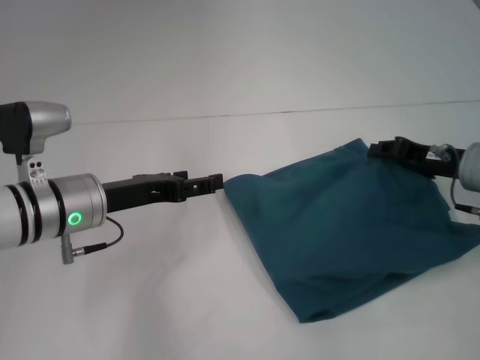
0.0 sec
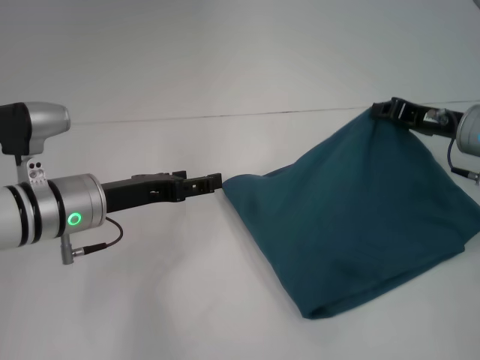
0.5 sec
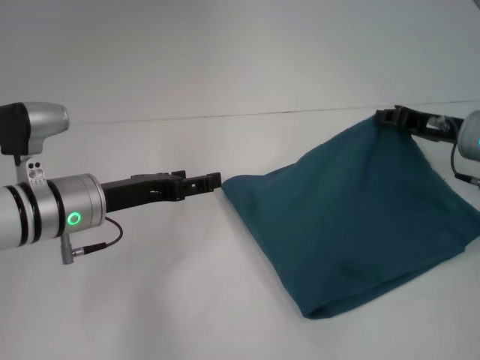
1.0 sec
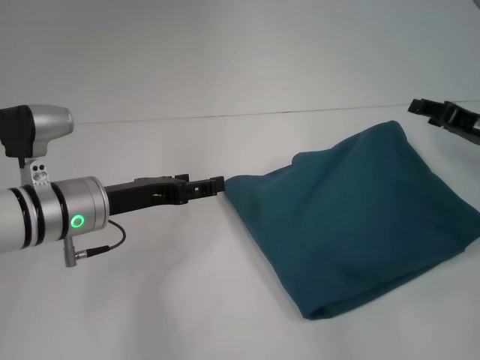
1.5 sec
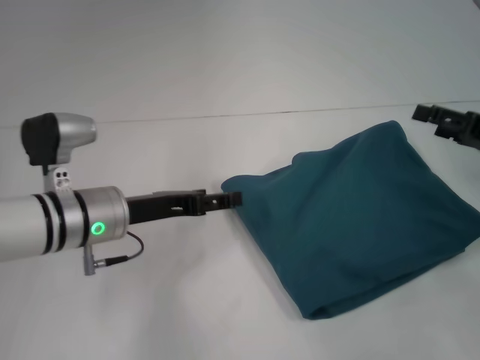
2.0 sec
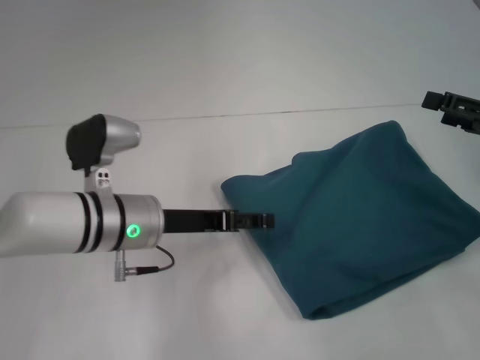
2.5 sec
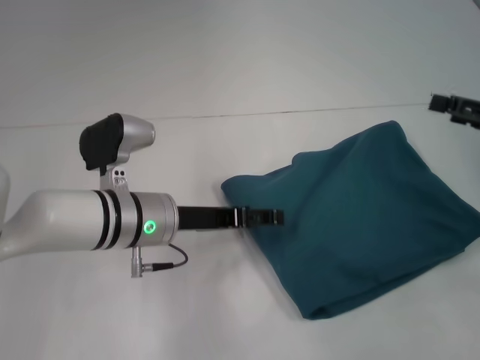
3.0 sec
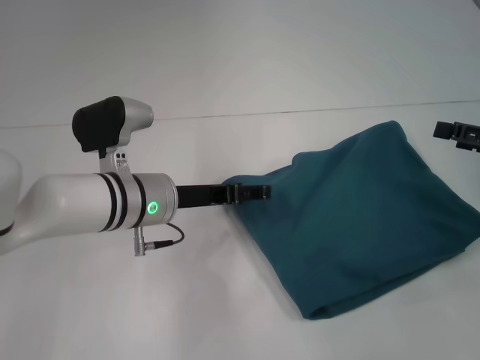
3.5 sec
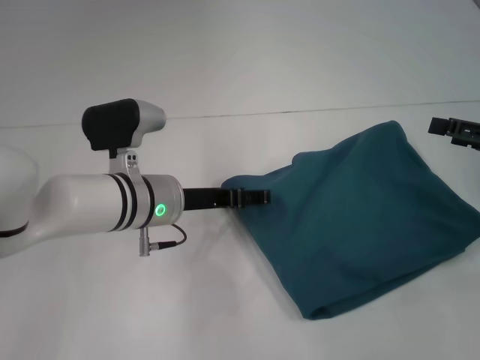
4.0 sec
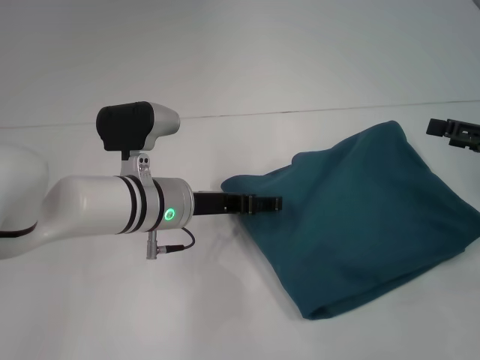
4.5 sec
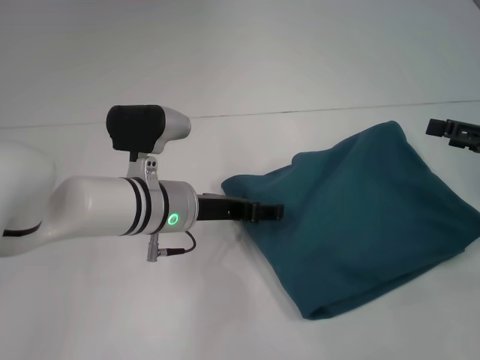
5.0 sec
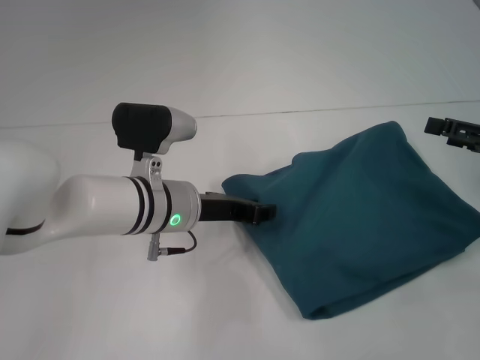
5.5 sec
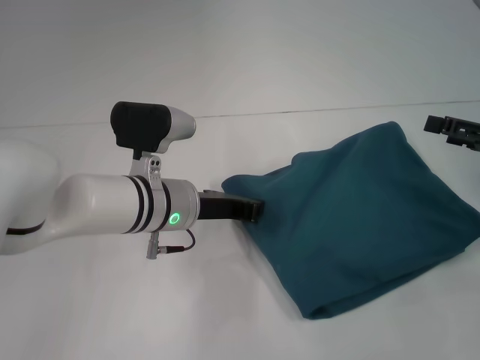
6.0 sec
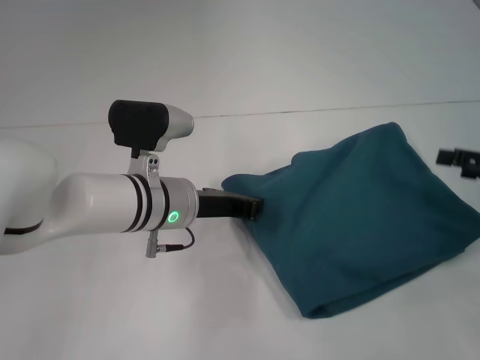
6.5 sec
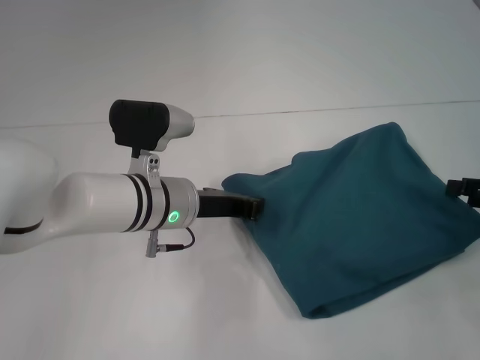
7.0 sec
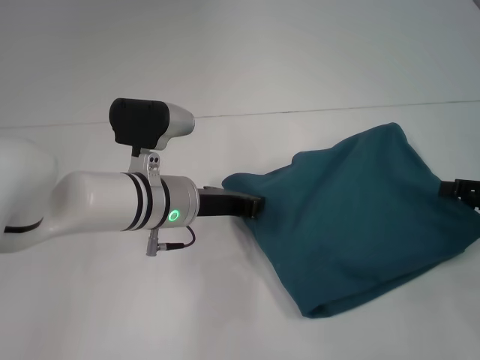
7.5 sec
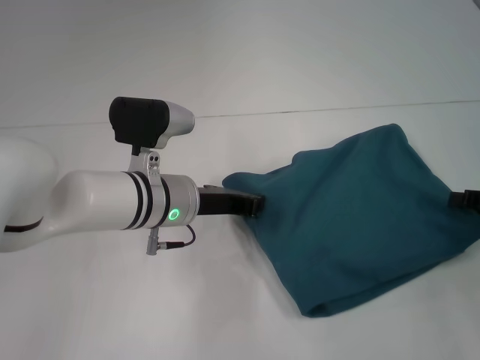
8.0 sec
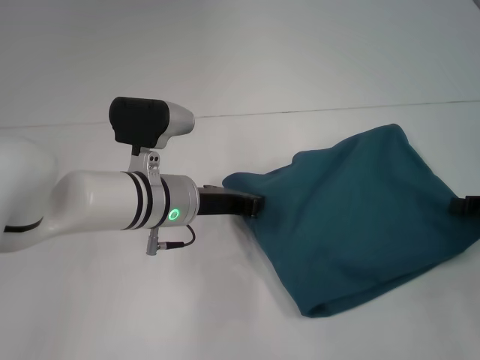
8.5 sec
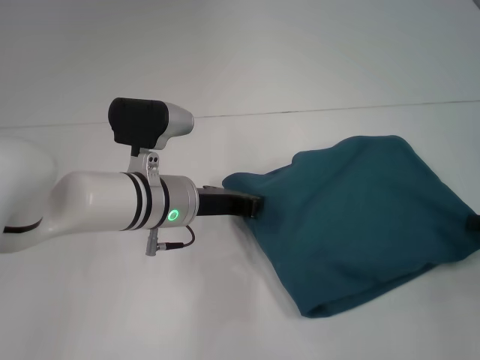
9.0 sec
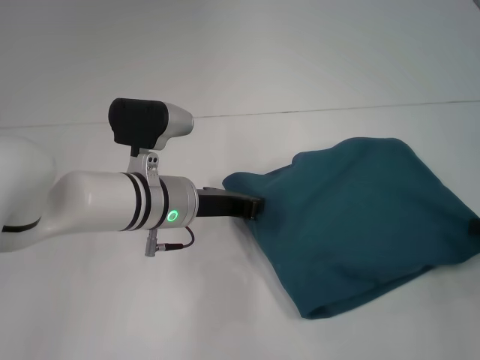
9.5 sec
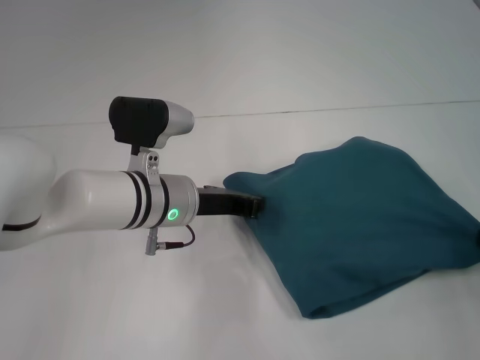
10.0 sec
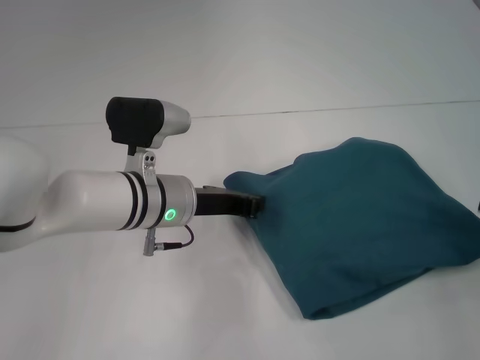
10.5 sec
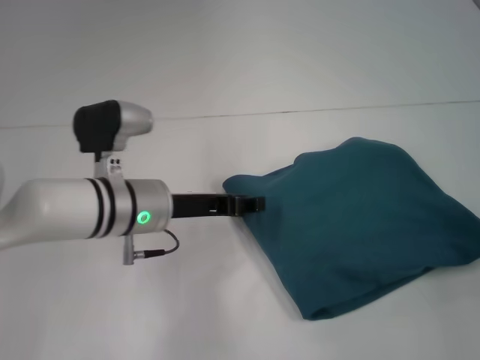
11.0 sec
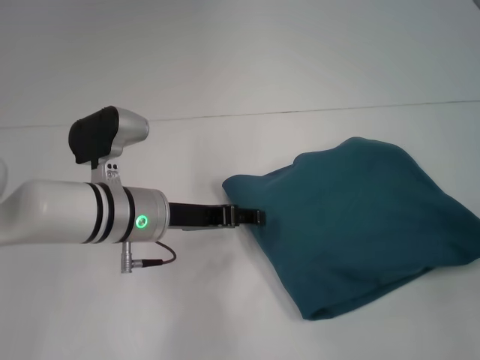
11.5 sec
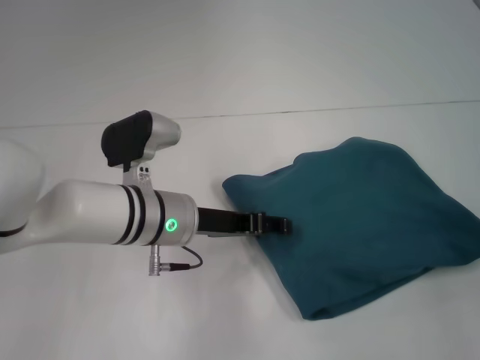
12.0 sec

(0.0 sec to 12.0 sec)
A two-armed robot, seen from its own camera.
0.0 sec - 2.0 sec: The right gripper moves to the right, approximately 5 cm, and opens its fingers.
2.0 sec - 4.0 sec: The left gripper moves to the right, approximately 5 cm.
4.0 sec - 6.0 sec: The left gripper closes.
6.0 sec - 8.0 sec: The right gripper ends up approximately 5 cm from where it was.
8.0 sec - 10.0 sec: The right gripper closes its fingers.
10.0 sec - 12.0 sec: The left gripper opens. Meanwhile the right gripper shifts about 5 cm upward, and opens up.

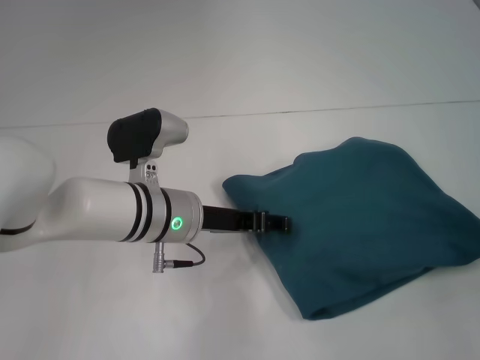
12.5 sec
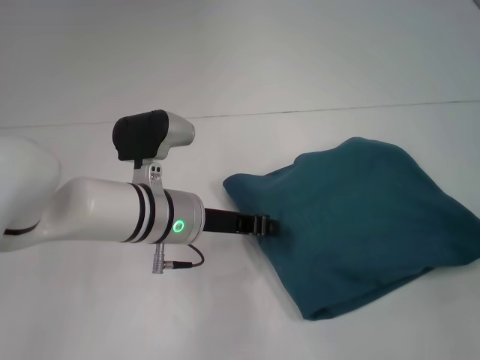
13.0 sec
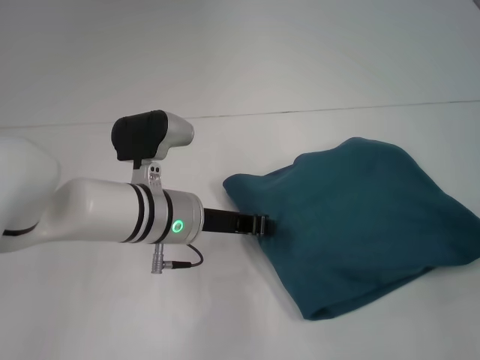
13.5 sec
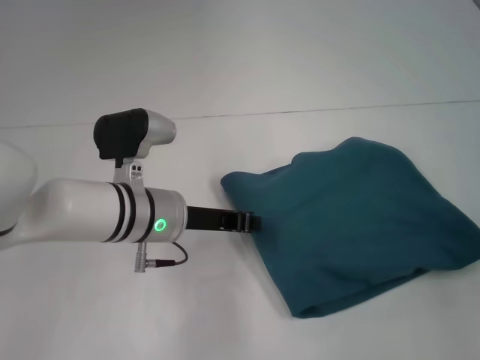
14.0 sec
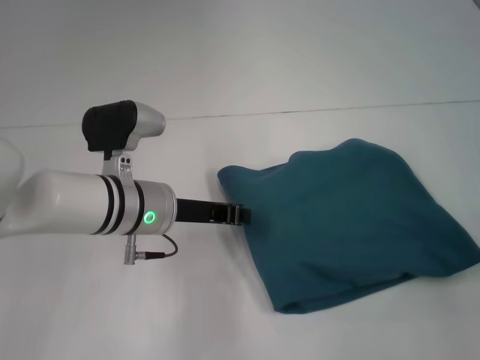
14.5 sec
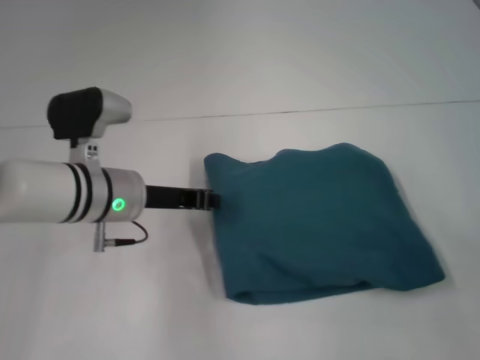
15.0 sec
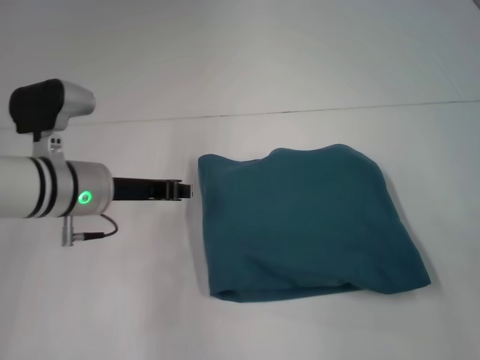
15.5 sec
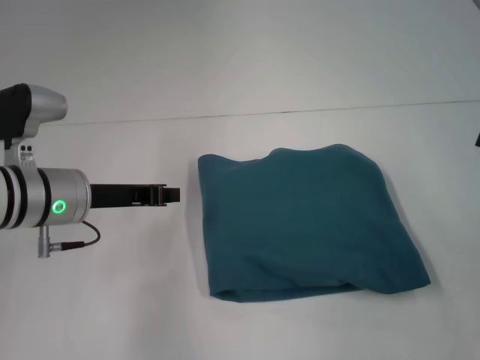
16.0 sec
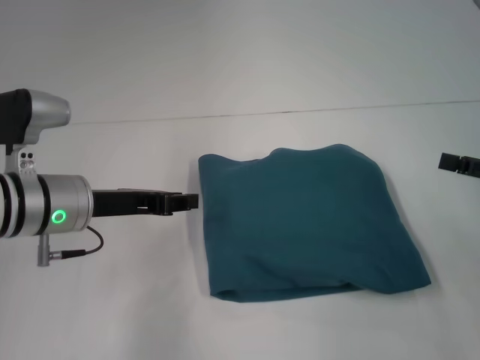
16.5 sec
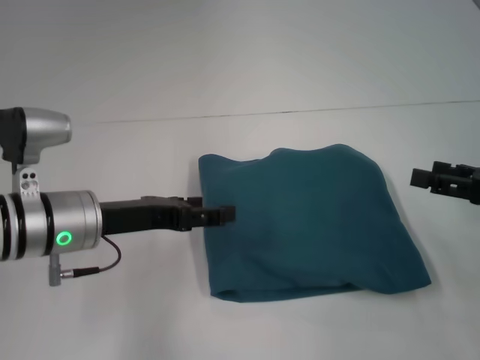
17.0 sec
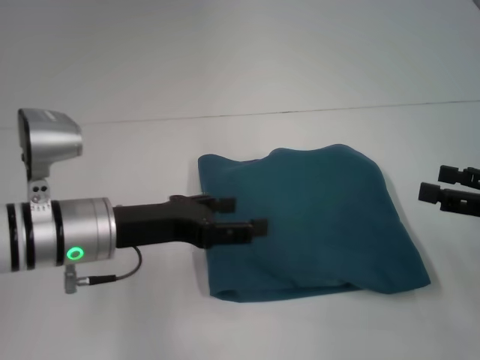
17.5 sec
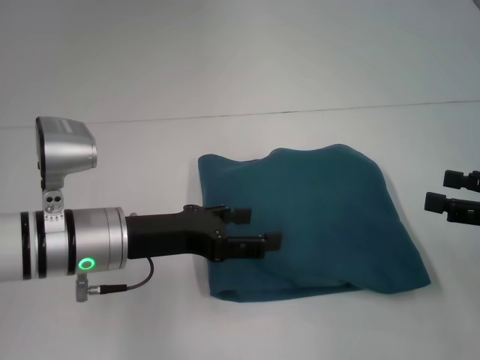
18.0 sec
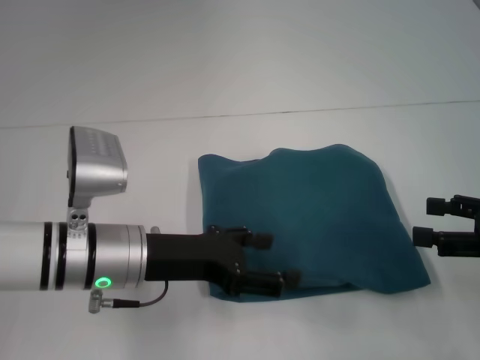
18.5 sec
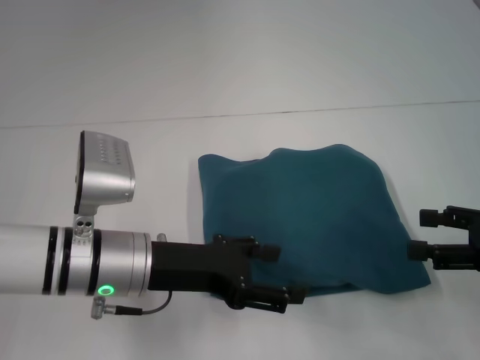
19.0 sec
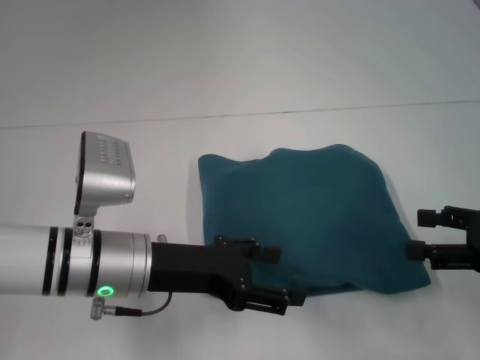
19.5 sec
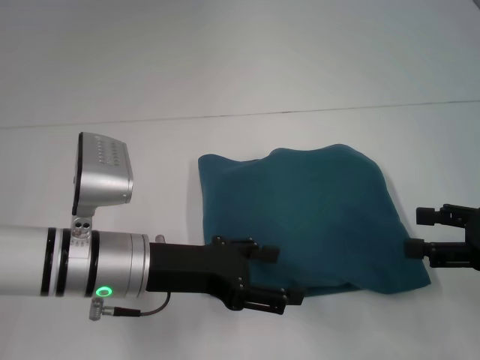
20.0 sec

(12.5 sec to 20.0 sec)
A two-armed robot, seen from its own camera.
12.5 sec - 14.5 sec: The left gripper closes up.
14.5 sec - 16.5 sec: The left gripper heads to the left, covering roughly 10 cm.
16.5 sec - 18.0 sec: The left gripper moves roughly 5 cm, and opens.
18.0 sec - 20.0 sec: The grippers stay close to where they were, moving slightly.

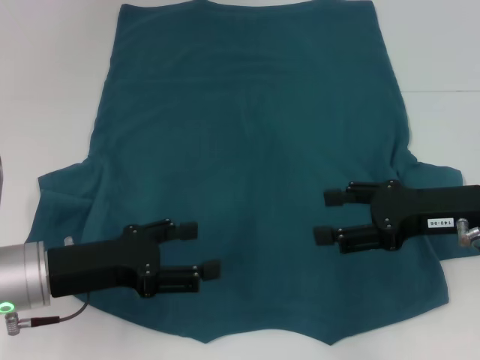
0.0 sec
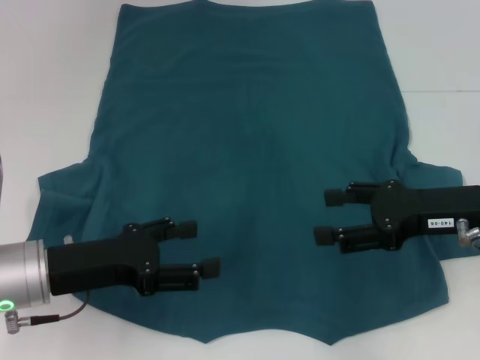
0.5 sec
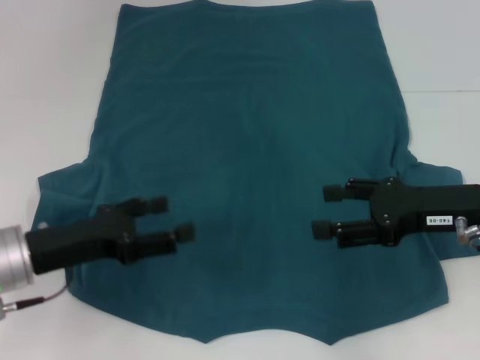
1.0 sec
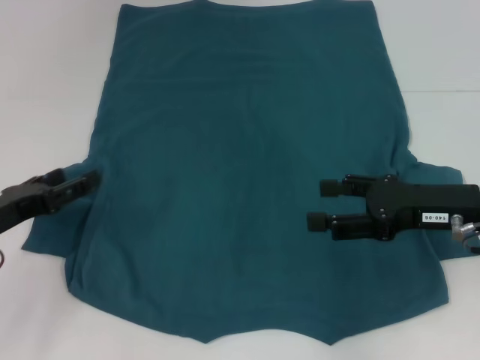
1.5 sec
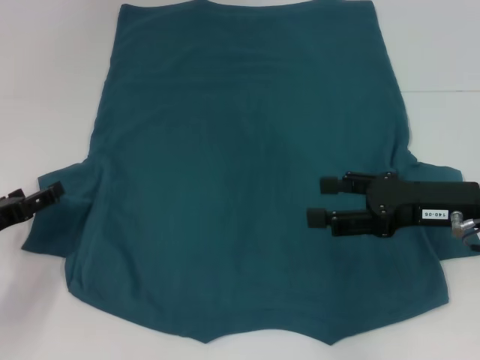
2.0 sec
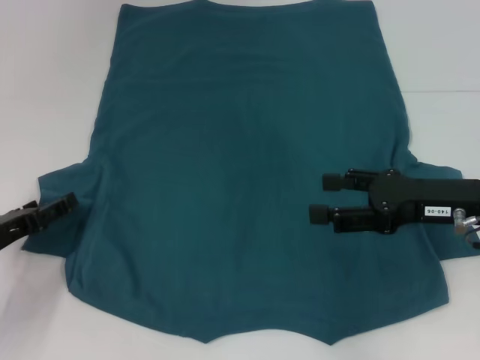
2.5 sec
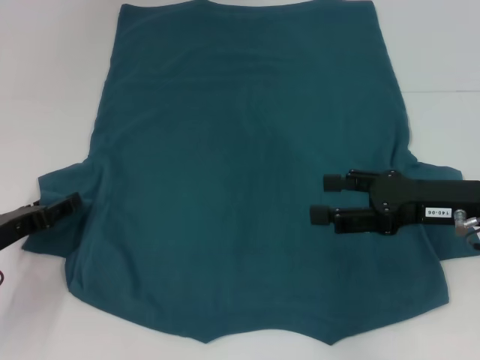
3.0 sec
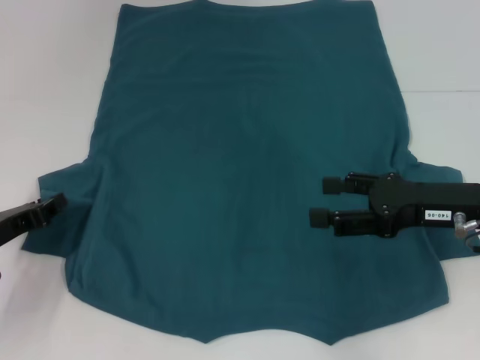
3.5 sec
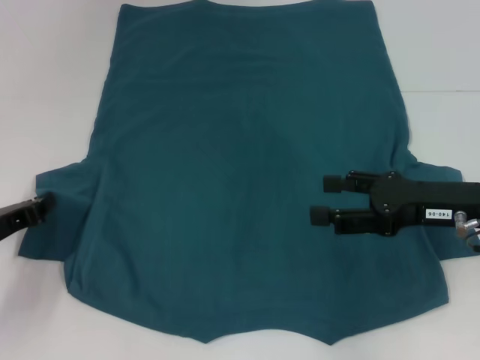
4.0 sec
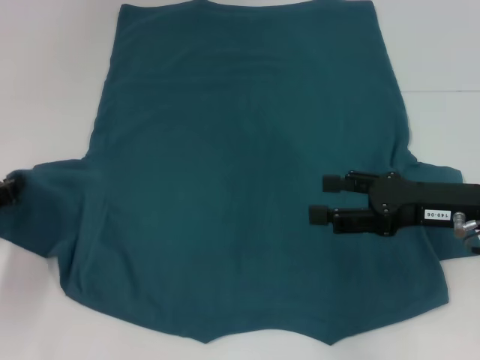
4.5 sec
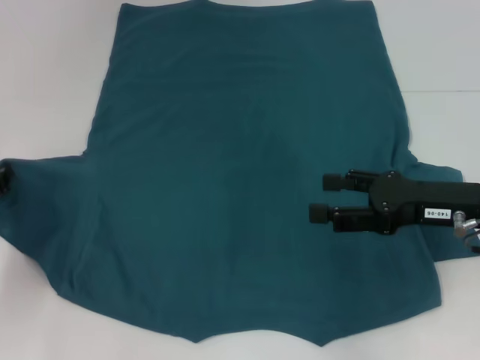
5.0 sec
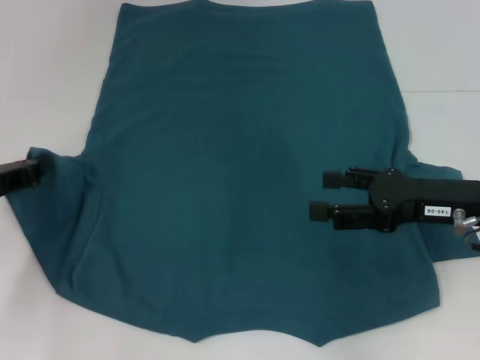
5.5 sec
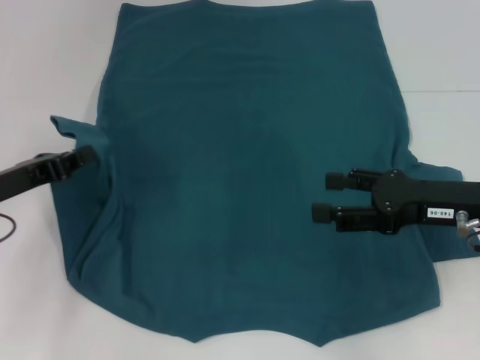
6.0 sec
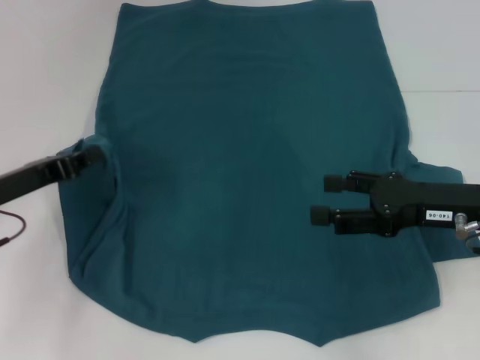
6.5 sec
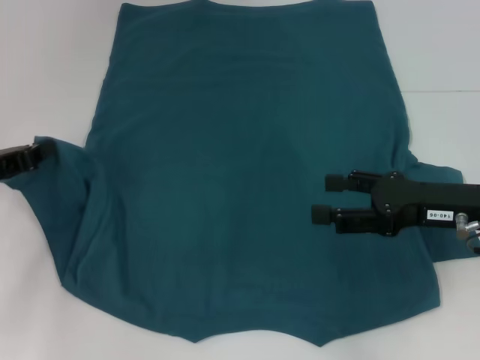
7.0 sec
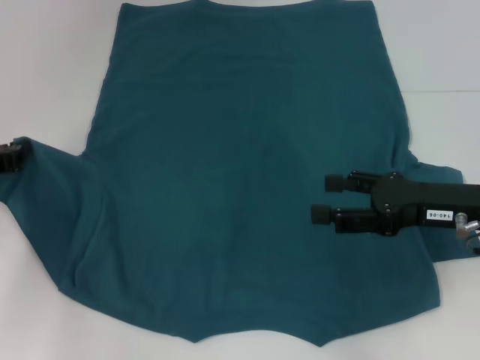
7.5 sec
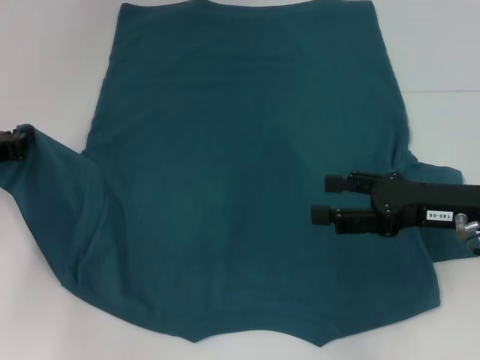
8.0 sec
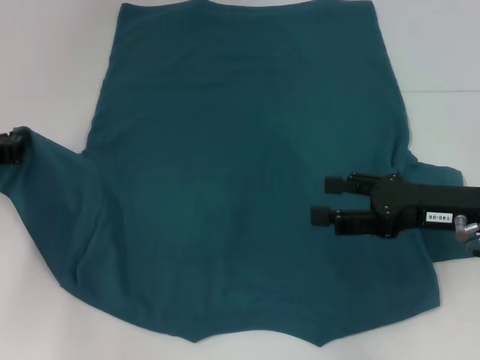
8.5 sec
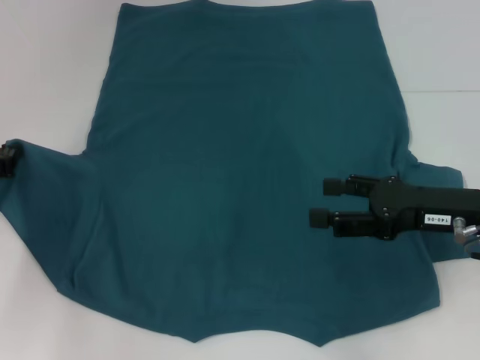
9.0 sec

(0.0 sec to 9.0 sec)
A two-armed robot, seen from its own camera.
0.0 sec - 2.0 sec: The left gripper shifts approximately 10 cm to the left.
2.0 sec - 4.5 sec: The left gripper closes its fingers.
4.5 sec - 7.0 sec: The left gripper moves about 5 cm.
7.0 sec - 9.0 sec: The grippers stay close to where they were, moving slightly.
